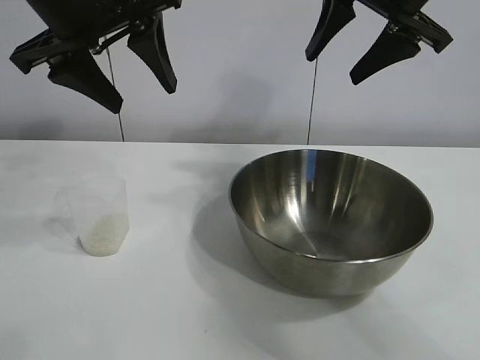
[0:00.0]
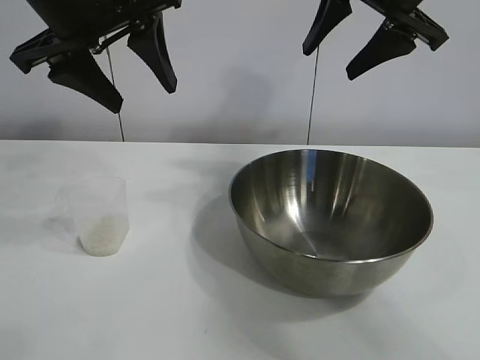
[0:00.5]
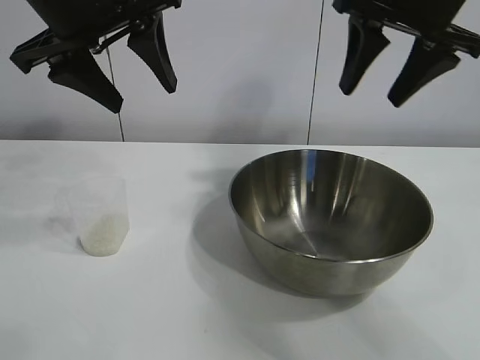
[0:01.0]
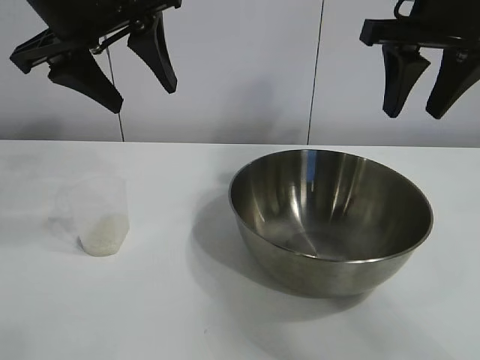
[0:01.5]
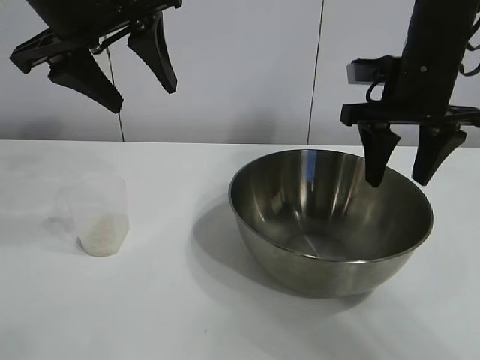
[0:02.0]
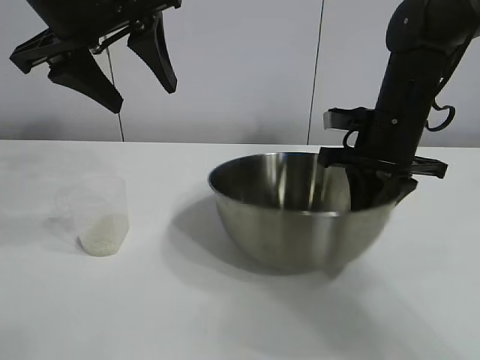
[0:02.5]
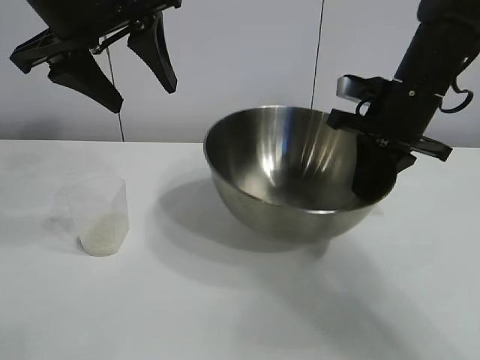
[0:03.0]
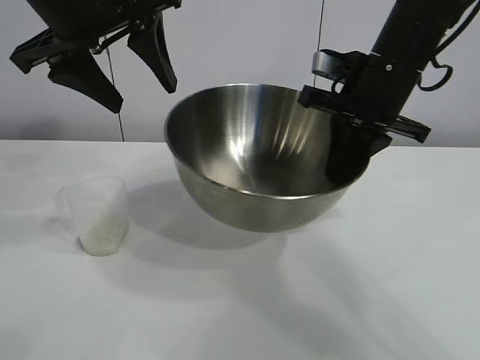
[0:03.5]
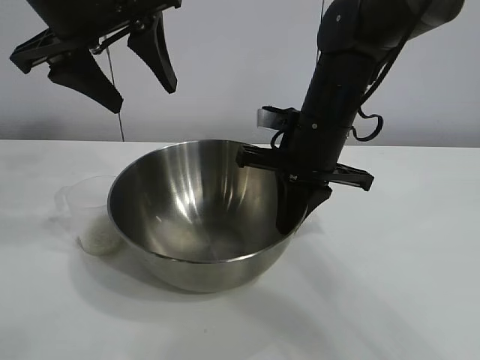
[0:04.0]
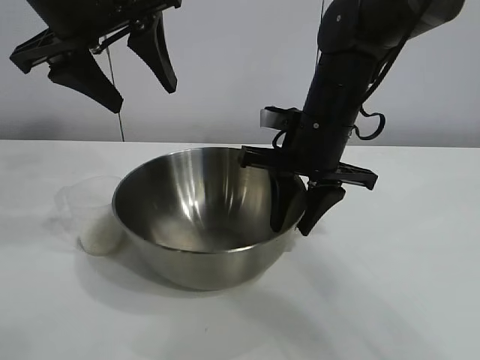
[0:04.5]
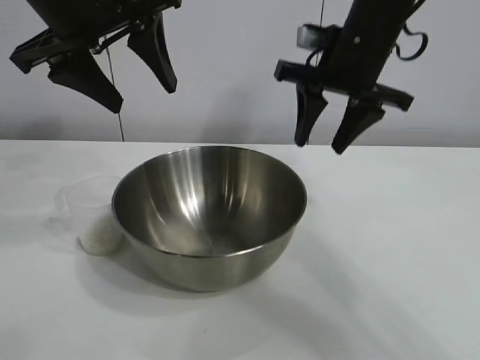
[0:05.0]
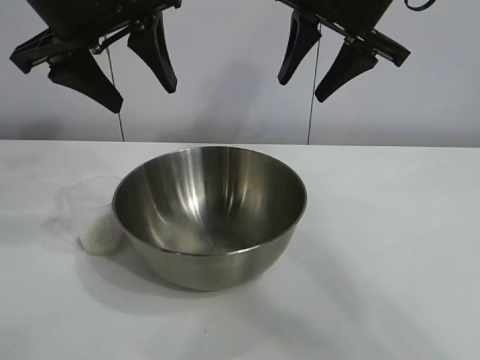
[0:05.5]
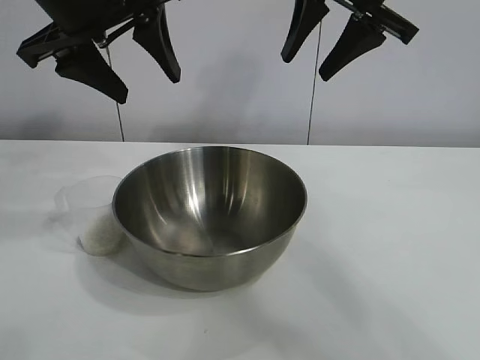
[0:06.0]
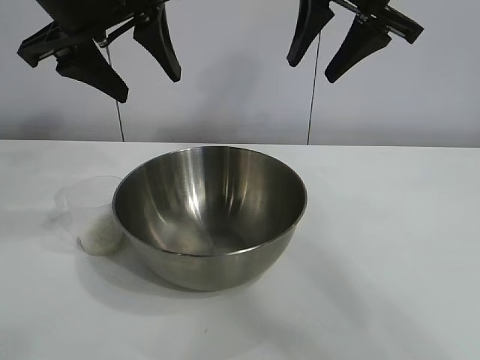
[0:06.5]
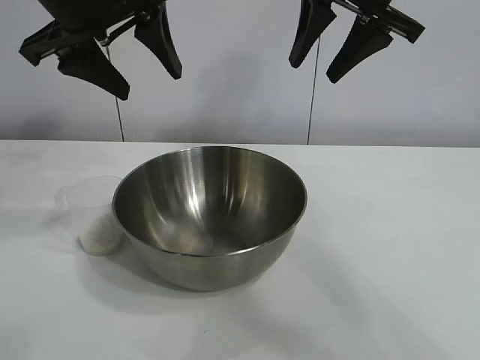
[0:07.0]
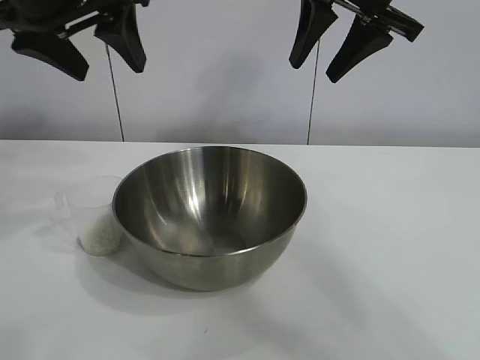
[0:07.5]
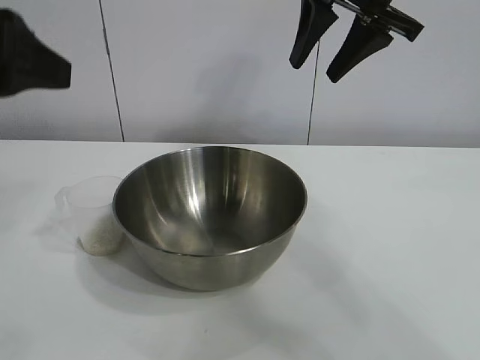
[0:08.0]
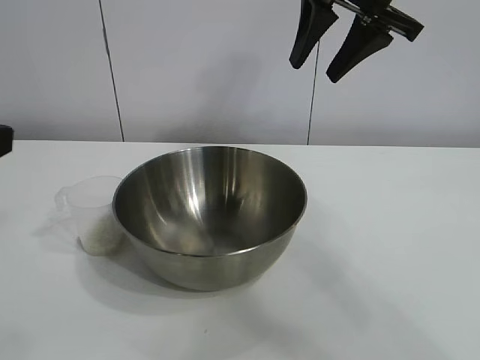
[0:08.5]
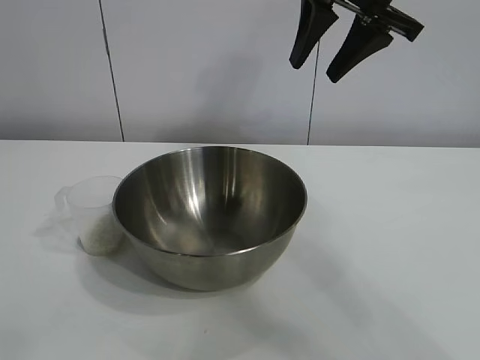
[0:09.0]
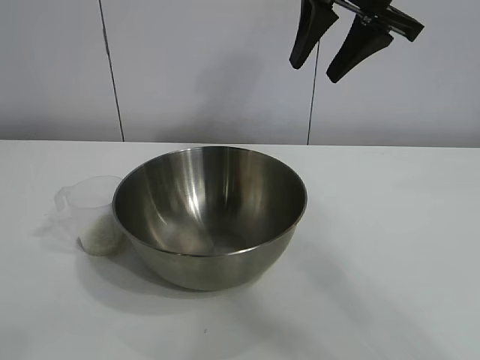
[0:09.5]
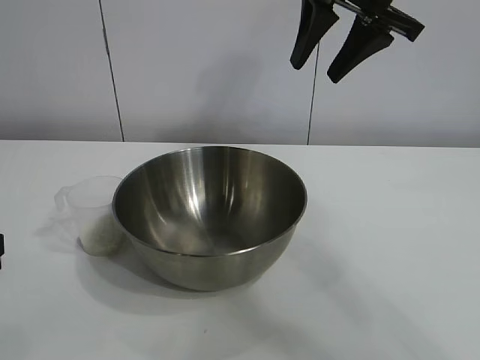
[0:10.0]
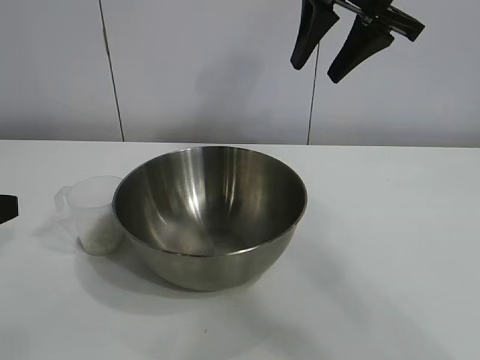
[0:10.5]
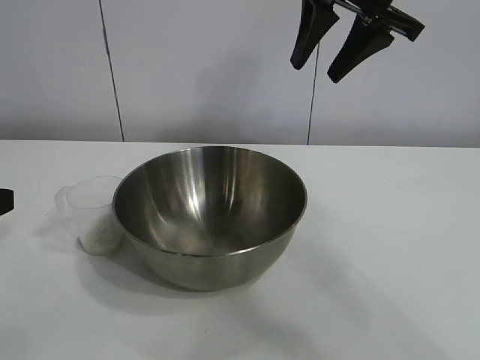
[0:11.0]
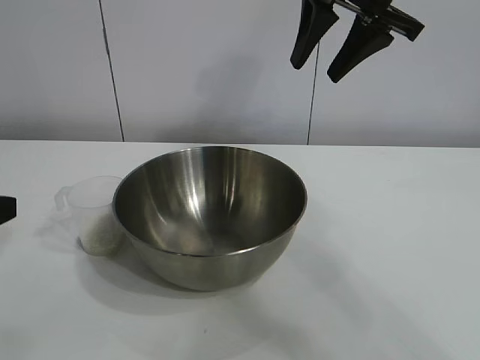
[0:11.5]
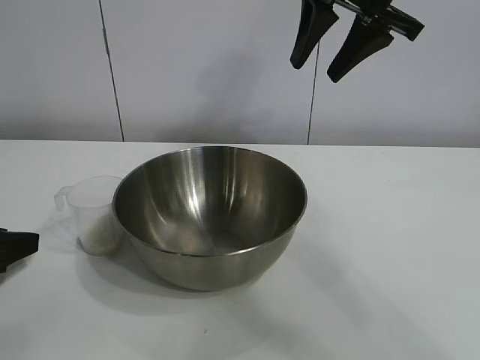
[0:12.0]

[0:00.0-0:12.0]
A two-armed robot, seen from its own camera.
Task of the whole recording: the right gripper grasp the rice container and place it in the center of the table, the left gripper grasp the rice scoop and pour the rice into the rice container.
Step, 0:00.5 to 0:04.5: Move the bowl in the center of view with right gripper.

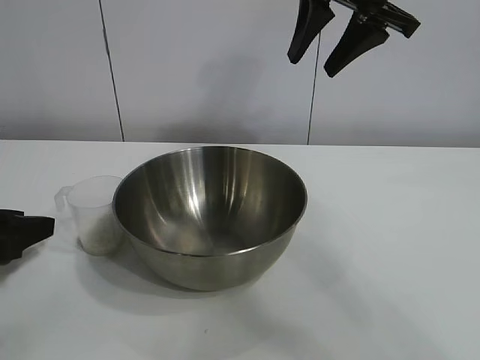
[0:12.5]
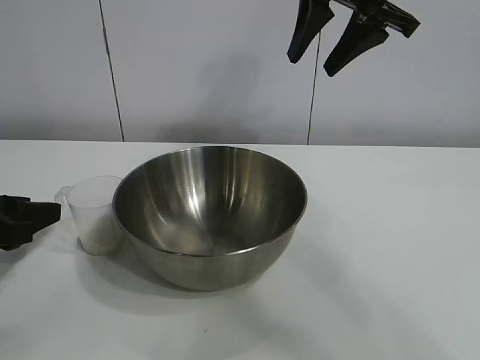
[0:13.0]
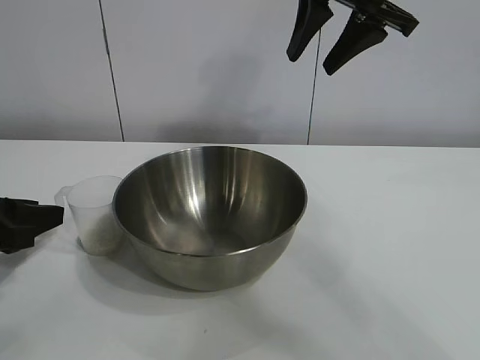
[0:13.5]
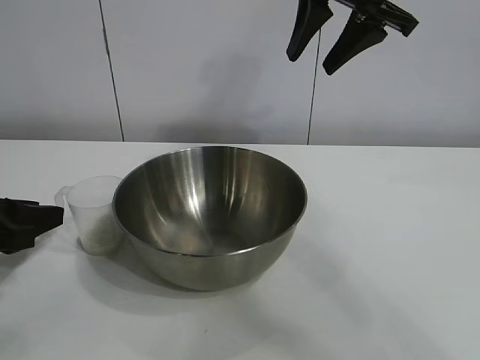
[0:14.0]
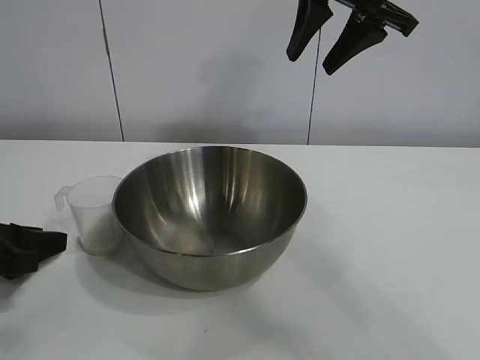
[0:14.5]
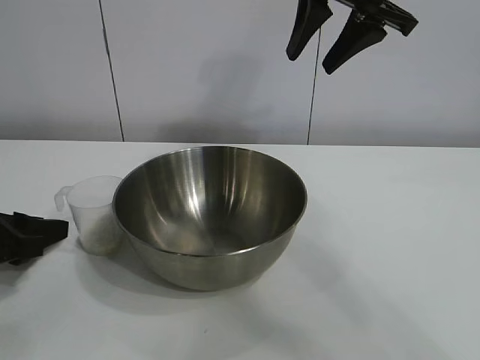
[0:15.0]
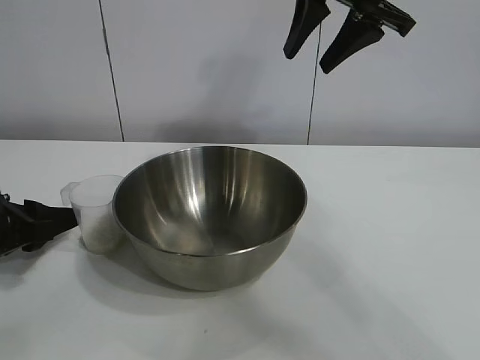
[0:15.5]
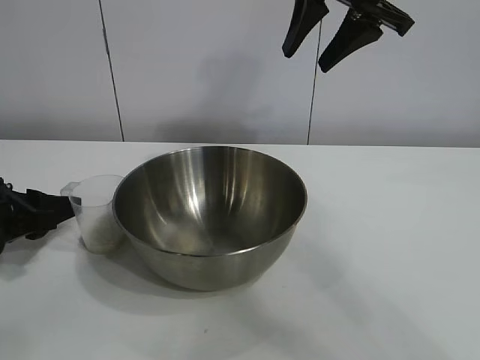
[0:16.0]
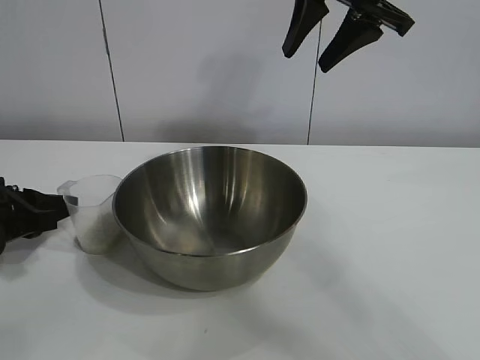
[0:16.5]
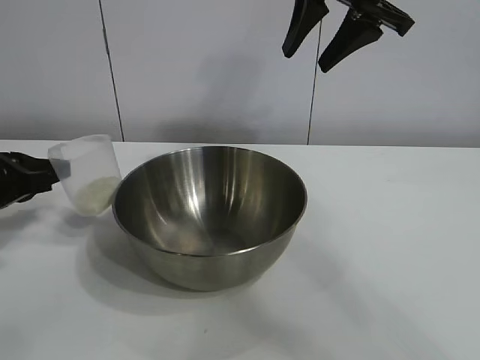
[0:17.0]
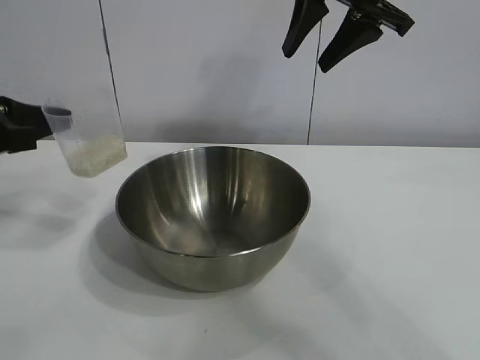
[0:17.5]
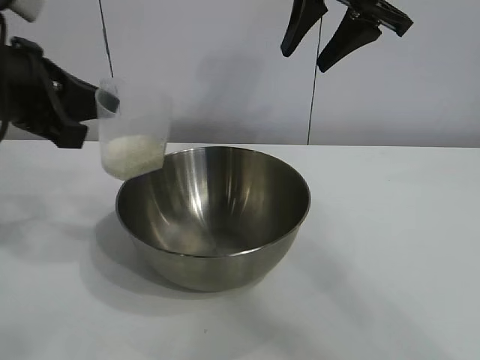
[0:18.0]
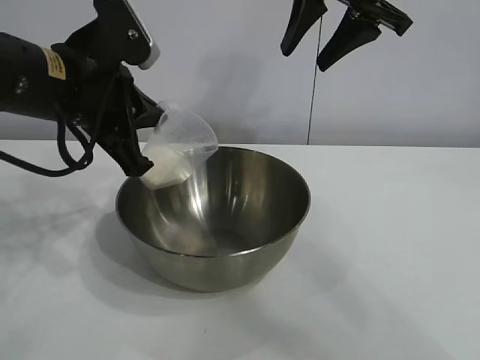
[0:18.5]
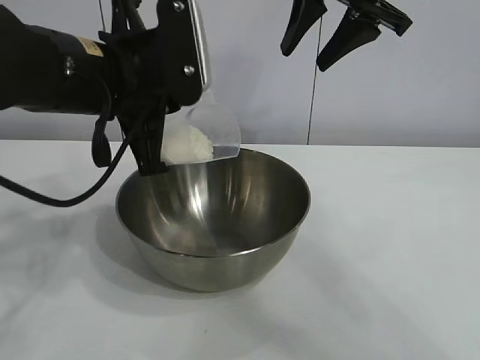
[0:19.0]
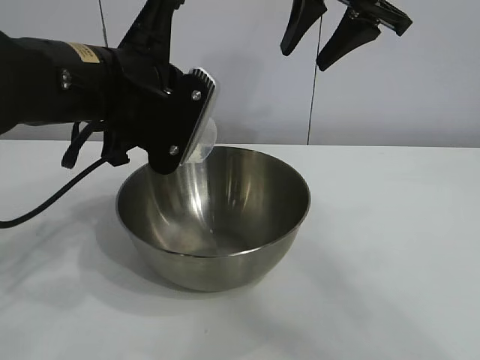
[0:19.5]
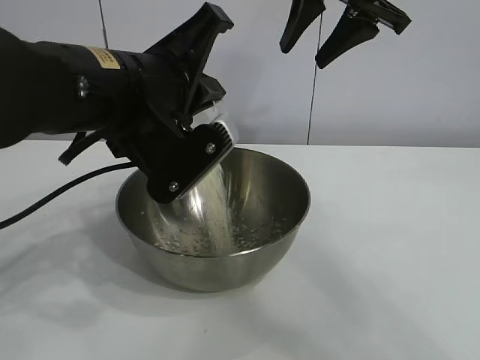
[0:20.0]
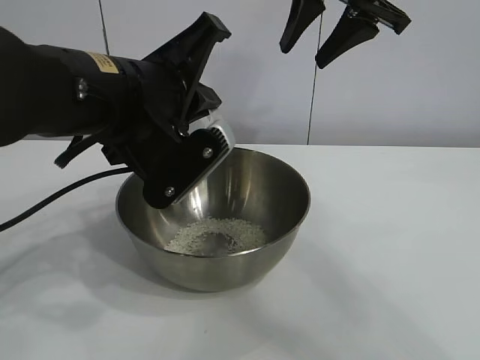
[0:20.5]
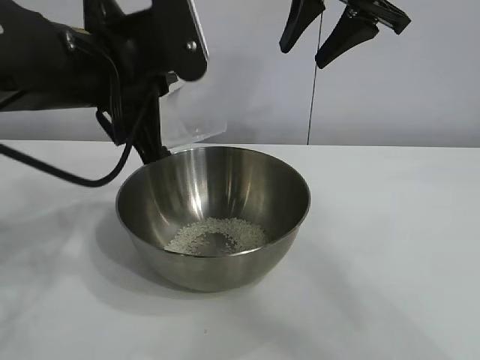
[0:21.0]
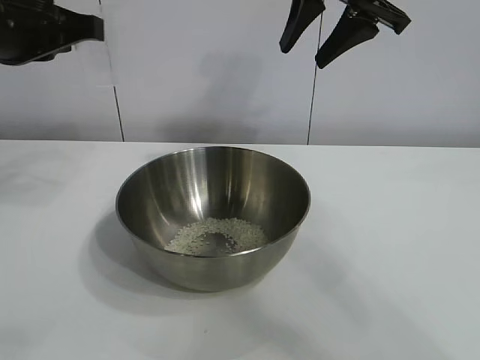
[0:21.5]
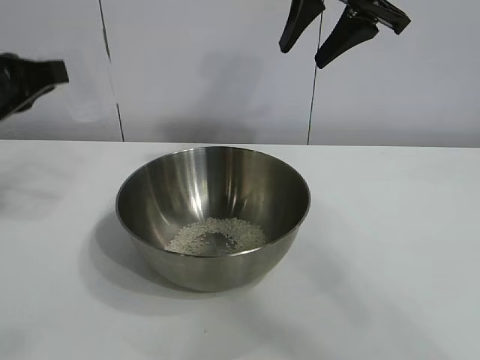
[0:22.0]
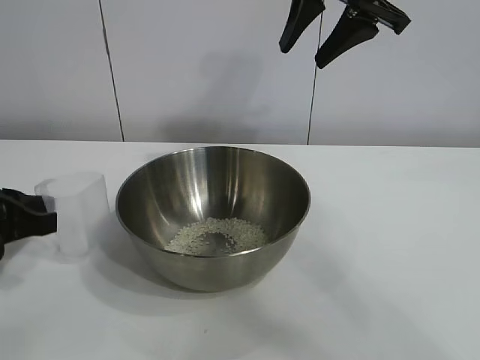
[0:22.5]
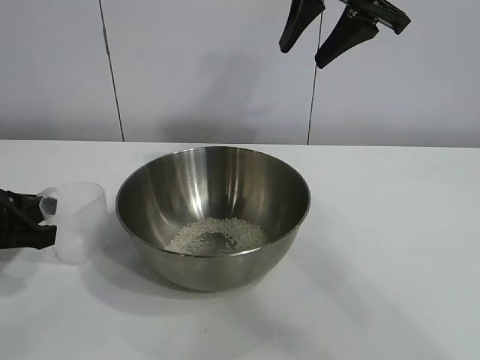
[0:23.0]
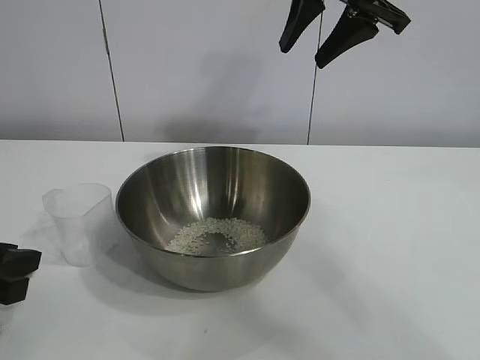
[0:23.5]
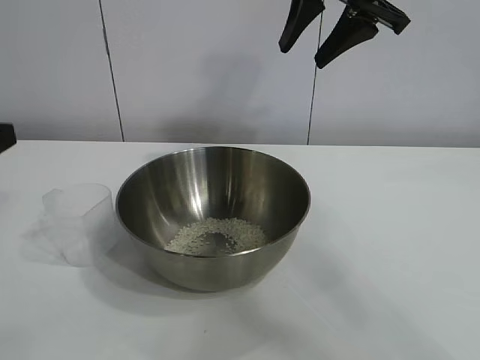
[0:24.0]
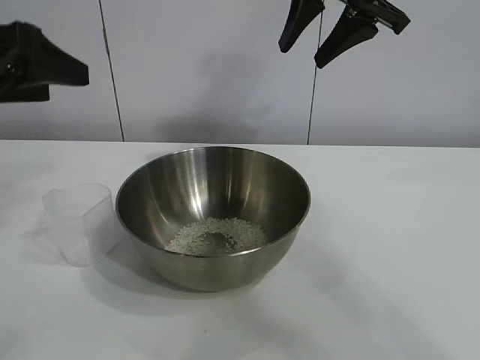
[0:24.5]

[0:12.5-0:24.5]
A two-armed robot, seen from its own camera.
Task of the whole recording: the right gripper grasp the rice container and place it in the center of the table, the left gripper grasp the rice scoop and pour the rice into the rice container.
Step, 0:12.5 to 0:16.5: Grasp the cup with rice in it with left gripper.
Step, 0:17.0 to 0:20.5: Pour the rice from the cup into the bowl with the left gripper.
Step, 0:21.0 to 0:23.0: Place the cup on the table with the left gripper.
